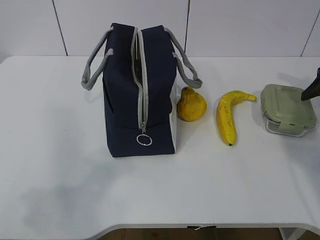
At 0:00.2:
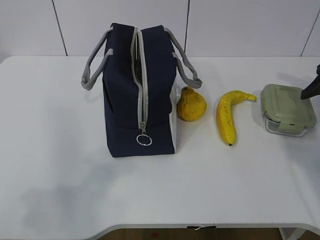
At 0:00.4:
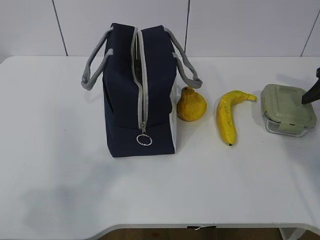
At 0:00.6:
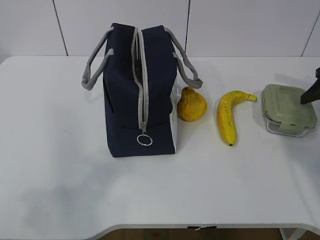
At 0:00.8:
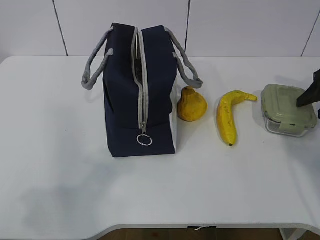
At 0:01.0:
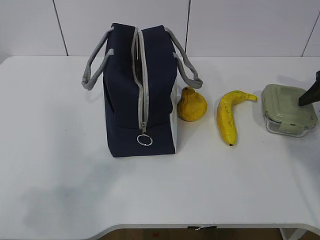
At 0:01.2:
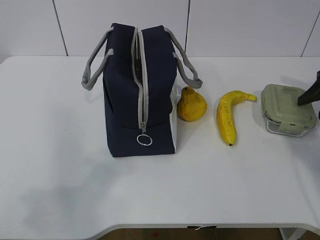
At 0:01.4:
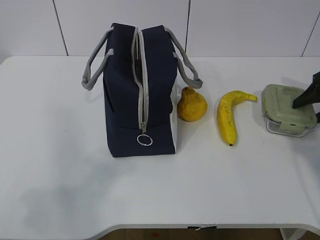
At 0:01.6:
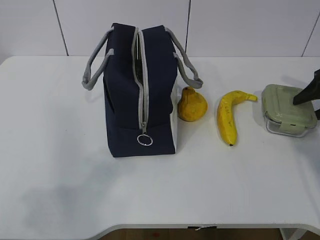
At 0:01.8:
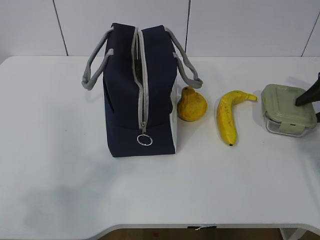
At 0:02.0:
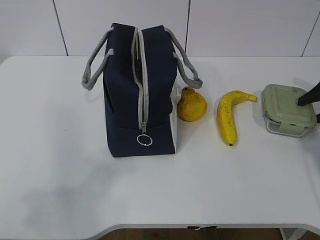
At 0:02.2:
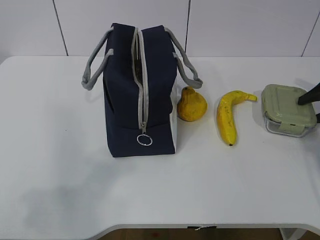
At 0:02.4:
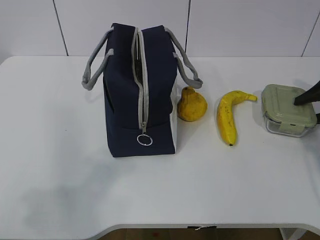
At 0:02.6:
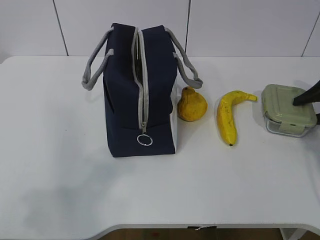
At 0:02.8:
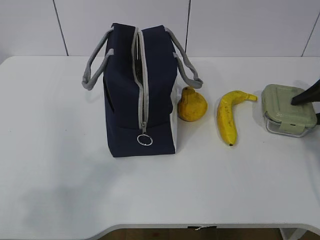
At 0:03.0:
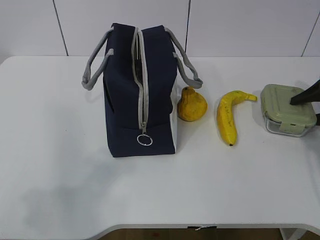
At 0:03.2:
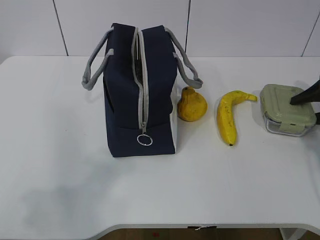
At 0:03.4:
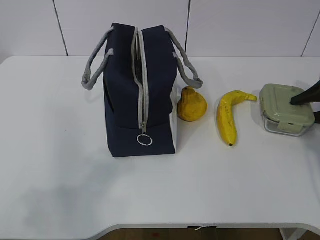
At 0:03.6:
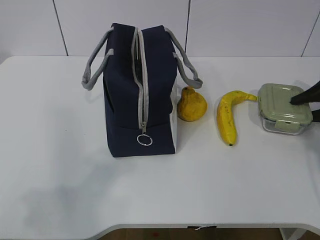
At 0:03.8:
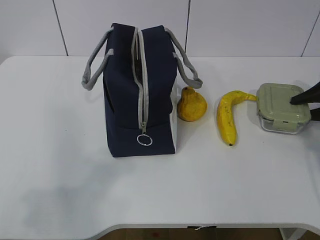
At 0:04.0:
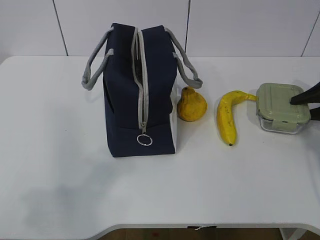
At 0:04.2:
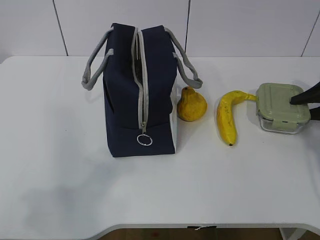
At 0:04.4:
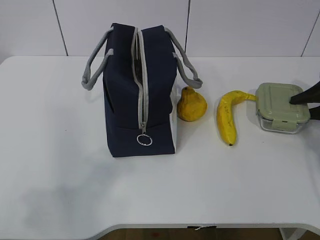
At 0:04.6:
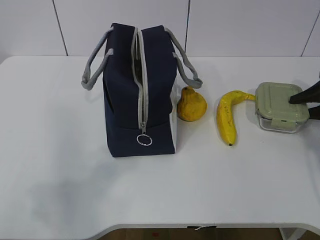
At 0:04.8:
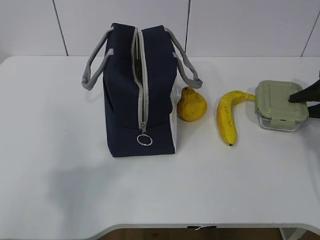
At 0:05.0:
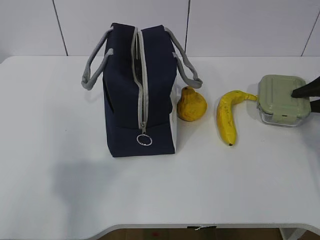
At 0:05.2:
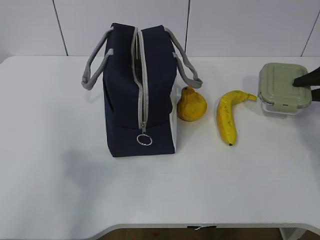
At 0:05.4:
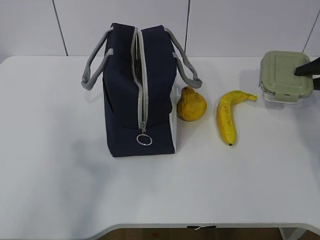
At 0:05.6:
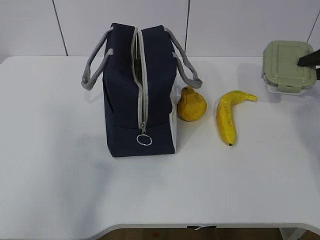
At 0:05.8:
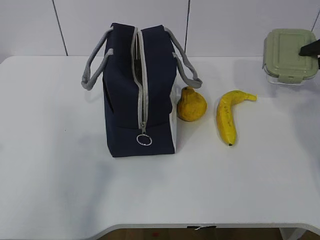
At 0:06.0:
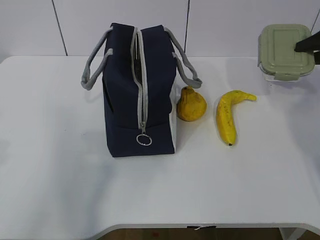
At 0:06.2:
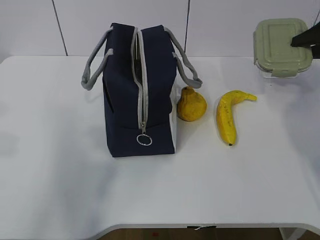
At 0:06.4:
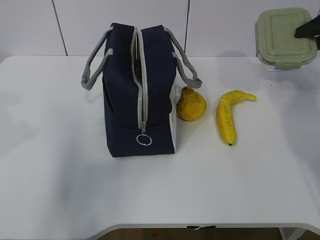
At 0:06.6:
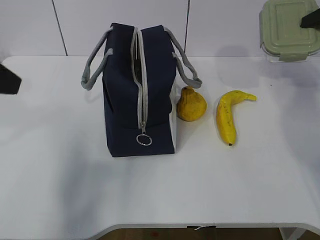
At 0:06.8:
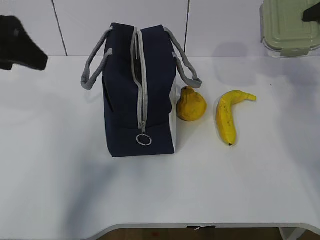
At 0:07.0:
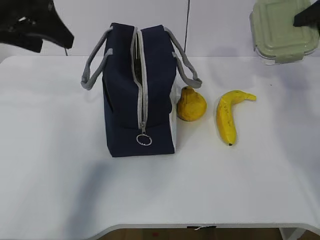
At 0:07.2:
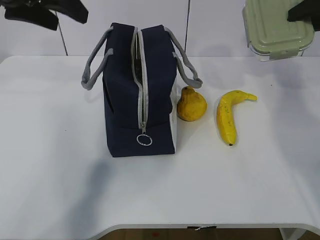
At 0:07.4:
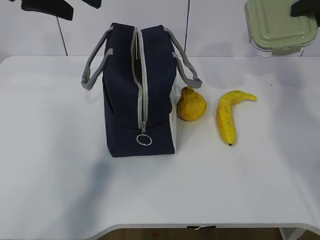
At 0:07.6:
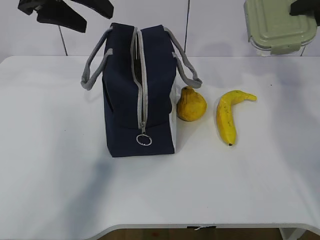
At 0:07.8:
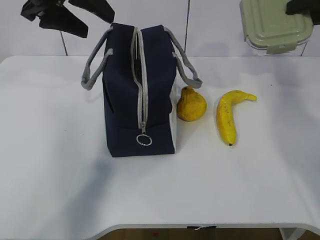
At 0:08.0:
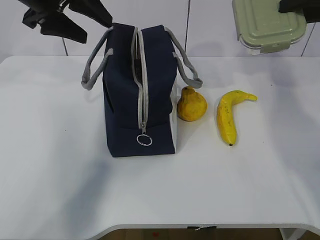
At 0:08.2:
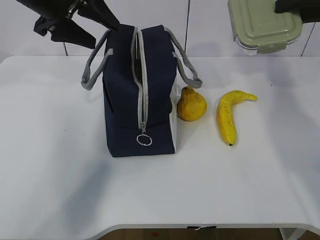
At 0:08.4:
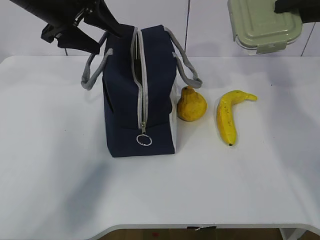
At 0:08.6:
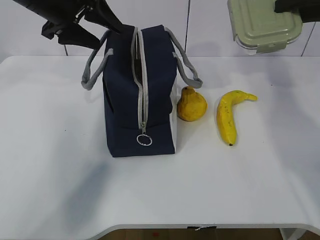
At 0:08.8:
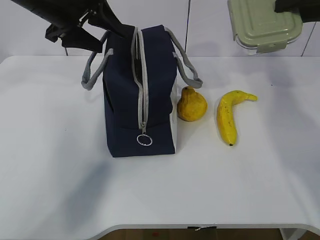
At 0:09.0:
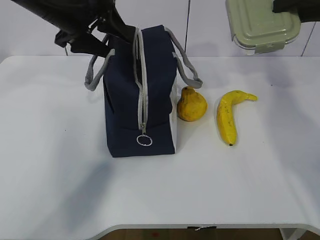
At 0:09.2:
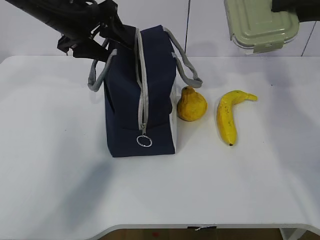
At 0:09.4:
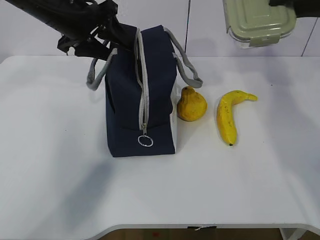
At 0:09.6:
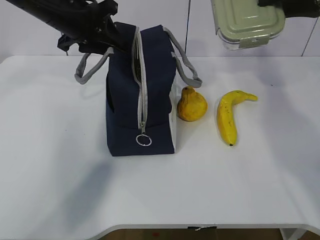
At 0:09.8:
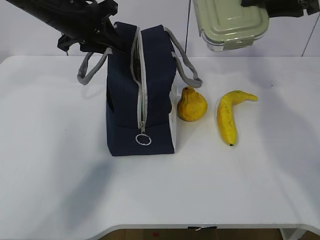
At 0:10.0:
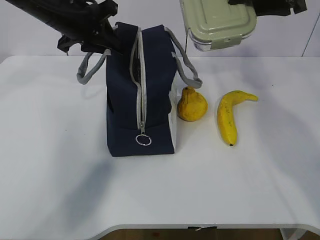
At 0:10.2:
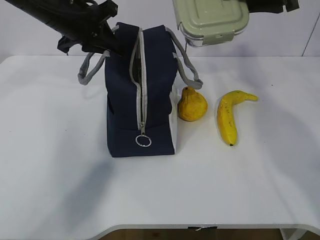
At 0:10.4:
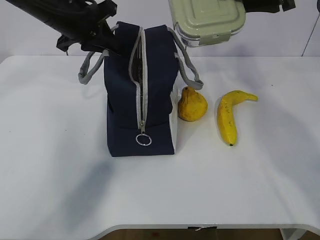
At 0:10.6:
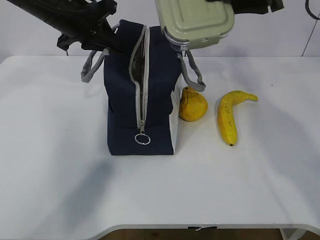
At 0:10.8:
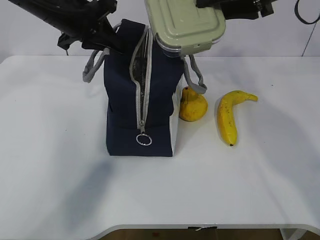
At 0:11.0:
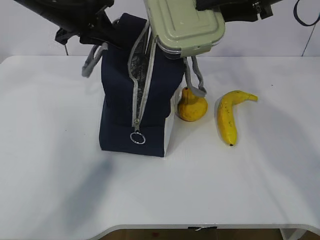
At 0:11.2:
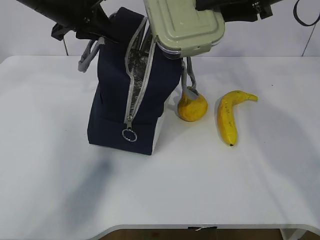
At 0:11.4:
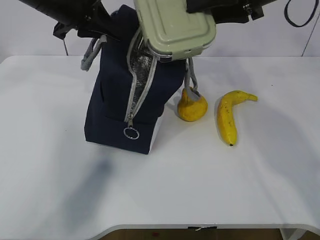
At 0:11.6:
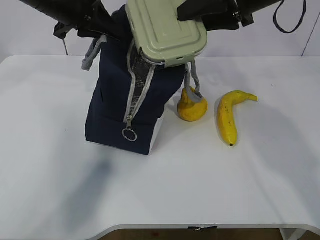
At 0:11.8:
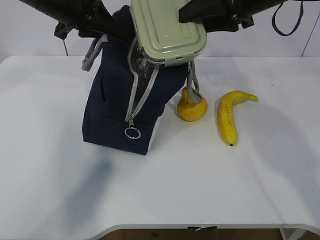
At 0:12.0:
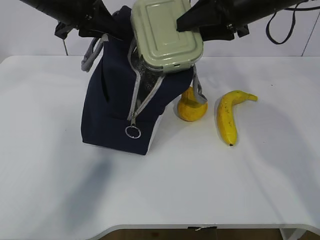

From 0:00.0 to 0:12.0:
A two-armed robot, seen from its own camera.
Step, from 0:02.2 to 0:08.4: Grab the lunch bag with your left hand.
From 0:00.0 to 0:01.6: The grippers stay close to where they were, moving slightly.
From 0:03.0 to 0:04.4: Both grippers stay about where they are.
From 0:04.4 to 0:06.0: The right gripper moves upward, approximately 10 cm; the left gripper goes roughly 10 cm forward and upward.
From 0:06.0 to 0:07.6: The right gripper shifts about 15 cm upward and to the left, while the left gripper shifts approximately 25 cm forward and to the right, and opens its fingers.
From 0:07.6 to 0:09.0: The left gripper goes some 5 cm downward.
From 0:09.0 to 0:10.4: The left gripper closes its fingers, while the right gripper is displaced to the left by roughly 10 cm.
From 0:10.4 to 0:12.0: The right gripper travels to the left by approximately 5 cm.

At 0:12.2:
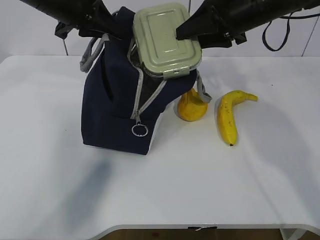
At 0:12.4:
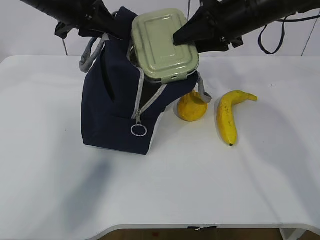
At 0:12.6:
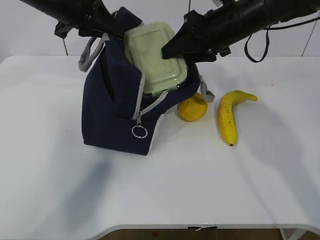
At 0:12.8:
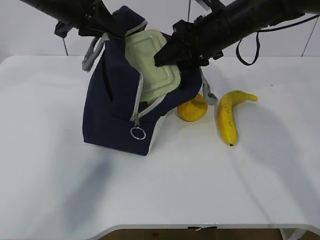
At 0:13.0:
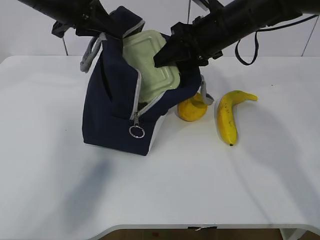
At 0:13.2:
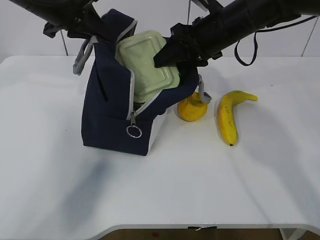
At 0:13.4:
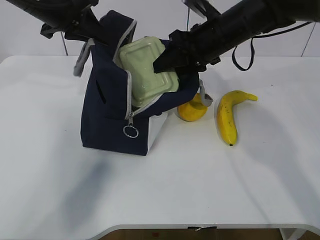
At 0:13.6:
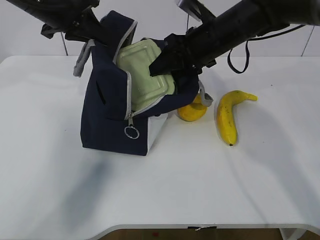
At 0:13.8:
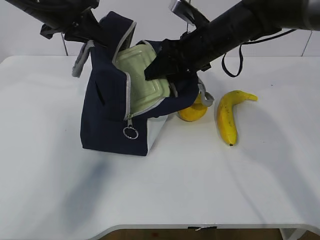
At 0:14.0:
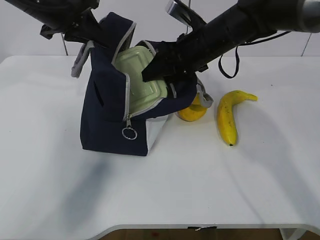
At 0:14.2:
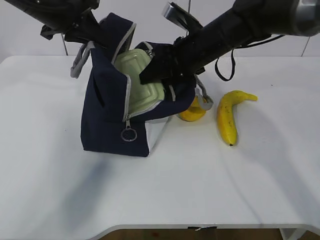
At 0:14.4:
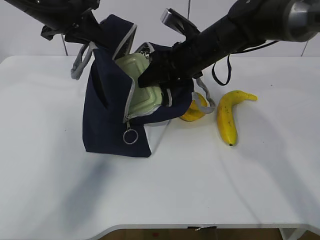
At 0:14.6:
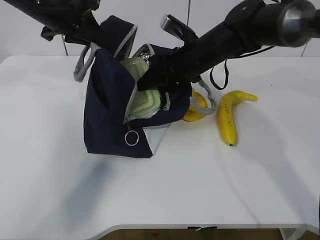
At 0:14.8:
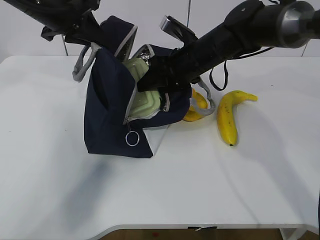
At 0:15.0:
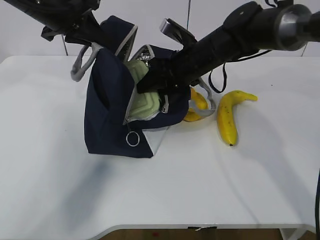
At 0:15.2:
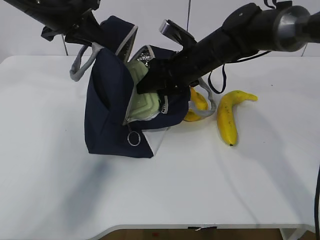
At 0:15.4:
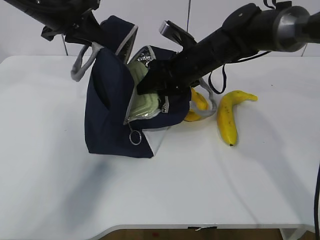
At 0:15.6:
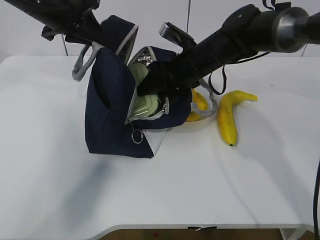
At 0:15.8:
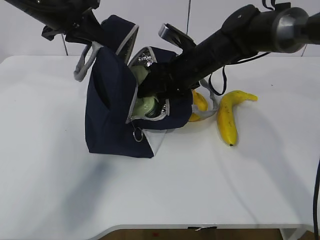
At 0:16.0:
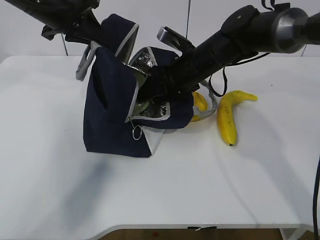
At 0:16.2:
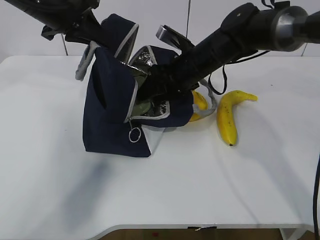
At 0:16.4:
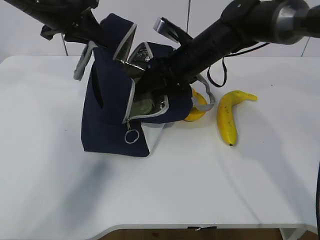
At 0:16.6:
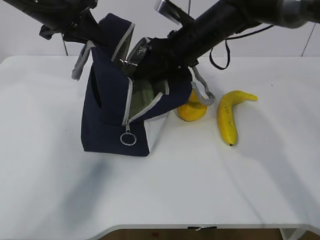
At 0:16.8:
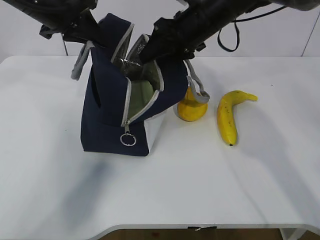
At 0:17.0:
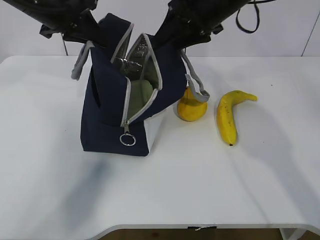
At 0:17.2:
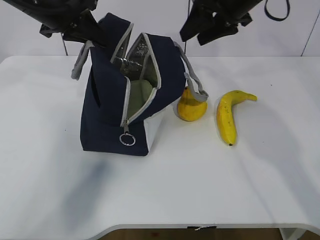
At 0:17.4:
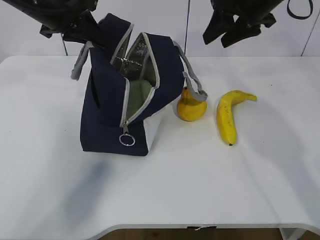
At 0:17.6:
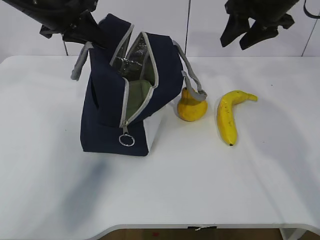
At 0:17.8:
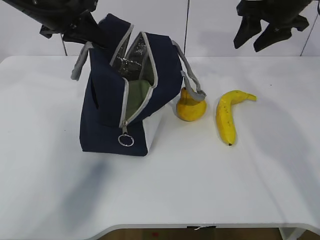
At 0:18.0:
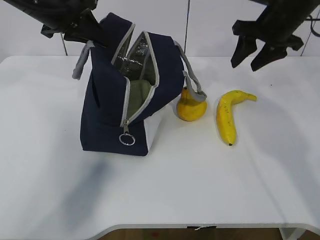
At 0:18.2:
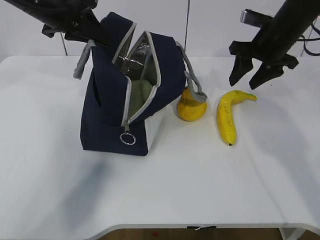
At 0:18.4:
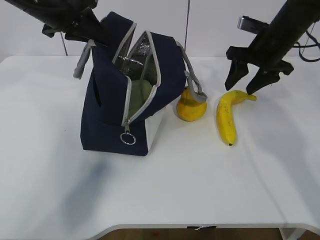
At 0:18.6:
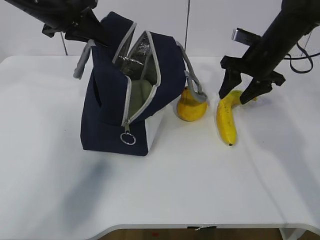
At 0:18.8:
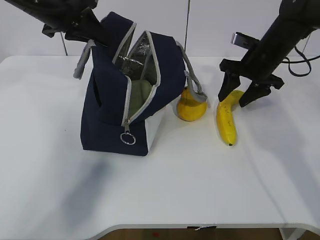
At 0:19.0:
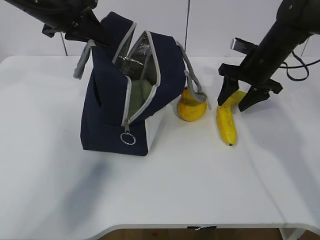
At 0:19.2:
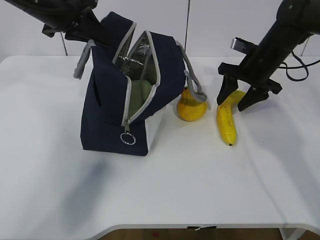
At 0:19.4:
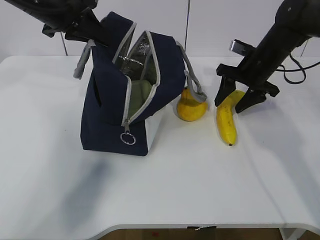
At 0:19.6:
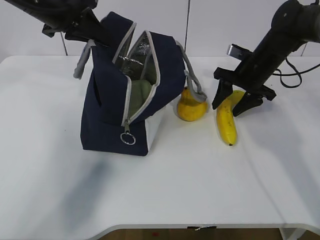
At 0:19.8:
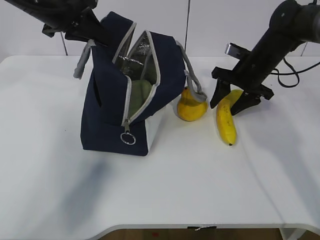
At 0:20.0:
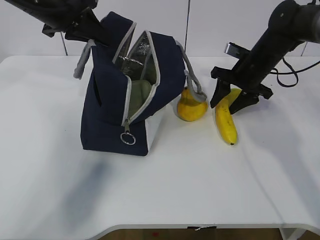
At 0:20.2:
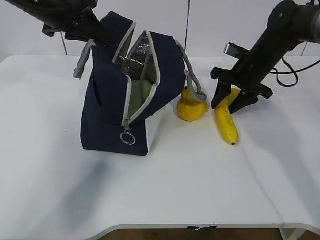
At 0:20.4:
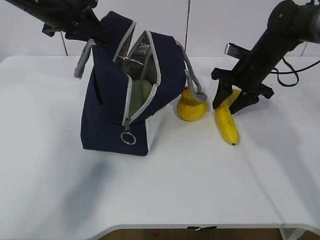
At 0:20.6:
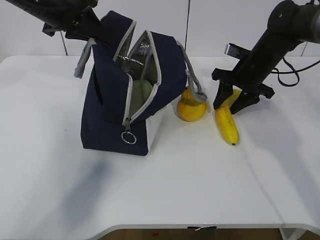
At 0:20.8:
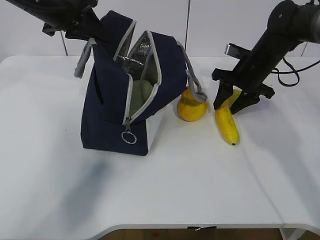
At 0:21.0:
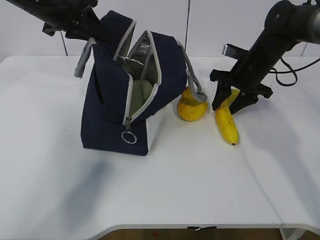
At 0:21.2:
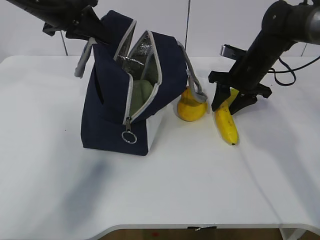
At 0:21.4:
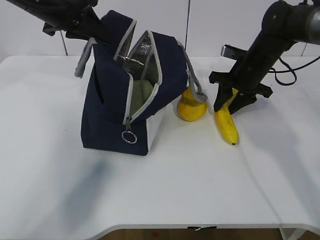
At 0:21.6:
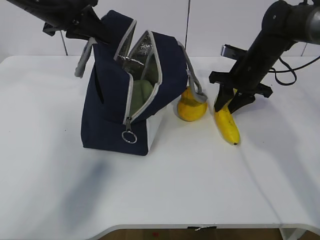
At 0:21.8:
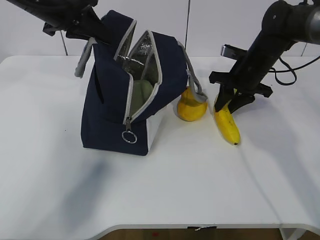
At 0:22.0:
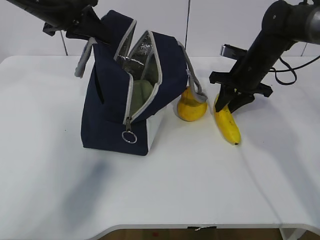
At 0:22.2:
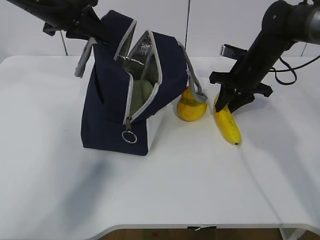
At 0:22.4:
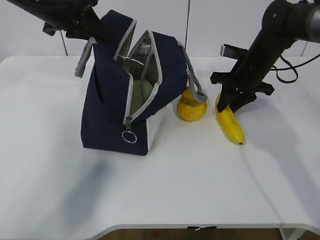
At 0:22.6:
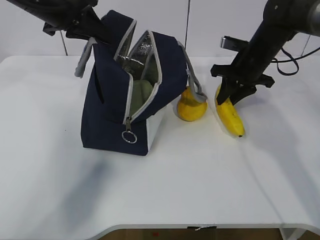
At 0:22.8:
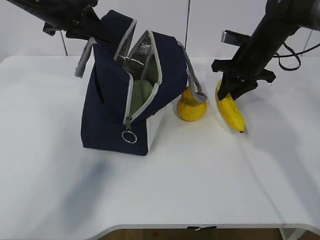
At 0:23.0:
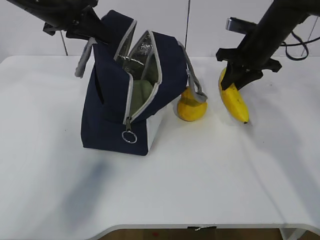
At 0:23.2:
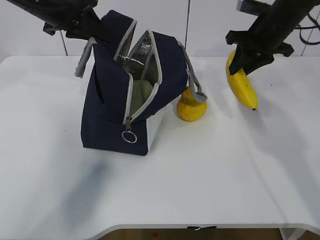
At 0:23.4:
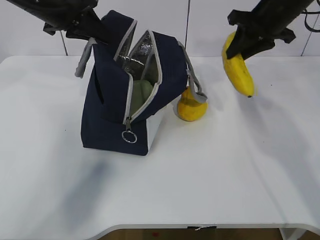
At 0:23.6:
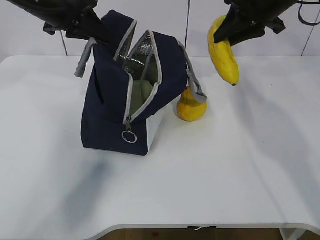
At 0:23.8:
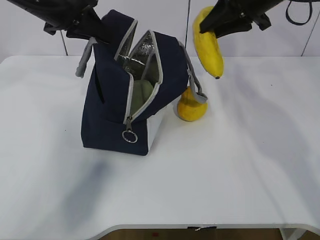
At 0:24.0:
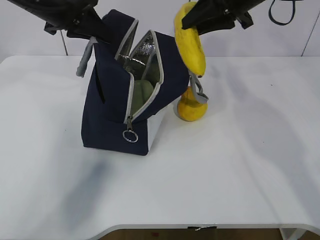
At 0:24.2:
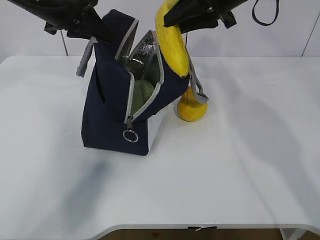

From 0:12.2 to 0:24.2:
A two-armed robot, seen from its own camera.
Step, from 0:12.6 to 0:16.8: Grab the banana with your right hand.
Step, from 0:17.2 to 0:20.6: Place it into the bag with your right hand.
From 0:12.2 to 0:13.8: The right gripper heads to the left and downward, covering some 10 cm.
From 0:13.8 to 0:15.2: The right gripper changes place by some 5 cm.
From 0:15.2 to 0:16.6: The grippers make only small movements.
From 0:16.6 to 0:18.2: The right gripper heads to the right, covering roughly 15 cm.
From 0:18.2 to 0:19.8: The right gripper shifts about 10 cm downward.
From 0:19.8 to 0:22.6: There are only small adjustments of the grippers.
From 0:22.6 to 0:24.2: The right gripper heads upward and to the left, covering about 15 cm.
